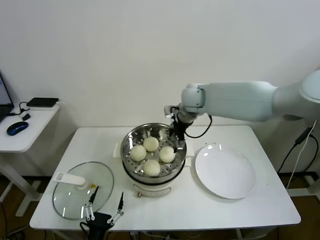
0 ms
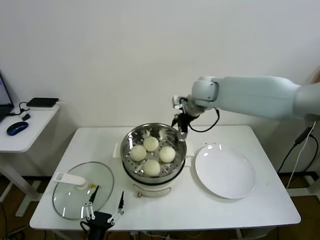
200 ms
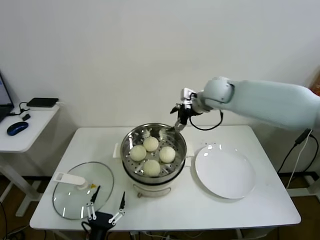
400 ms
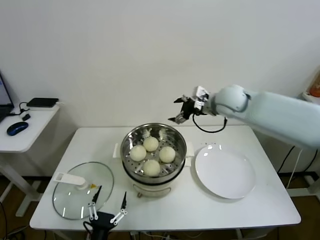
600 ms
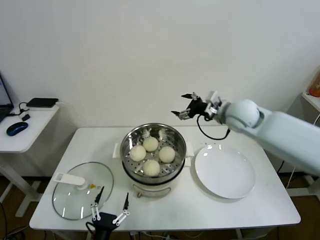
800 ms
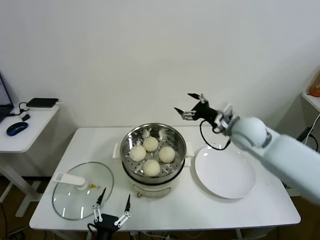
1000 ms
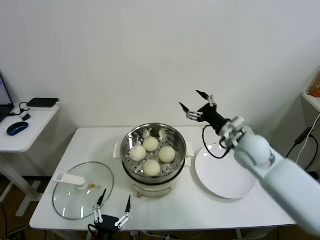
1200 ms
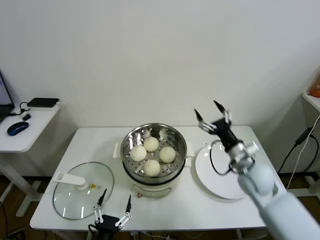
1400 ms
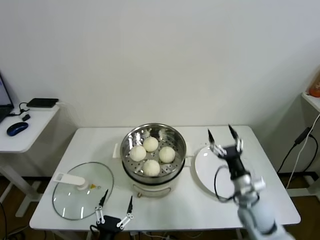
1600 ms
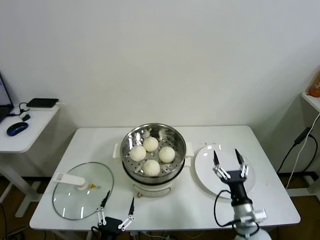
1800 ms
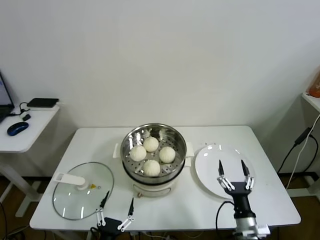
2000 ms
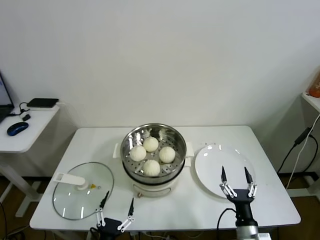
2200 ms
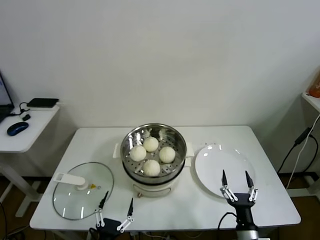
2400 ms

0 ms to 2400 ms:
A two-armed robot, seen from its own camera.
Task of the whole recording: take steamed baozi put them in steamer.
0 ms to 1200 ms: The right gripper is displaced to the right, backward and downward by some 25 cm.
1200 ms to 2400 ms: The right gripper goes some 35 cm backward and downward.

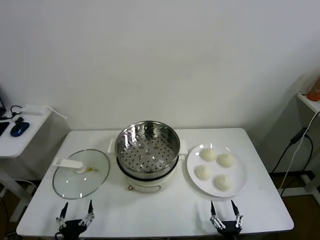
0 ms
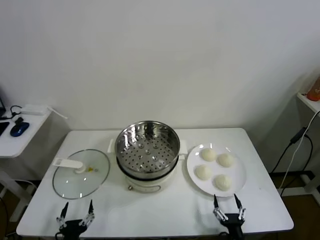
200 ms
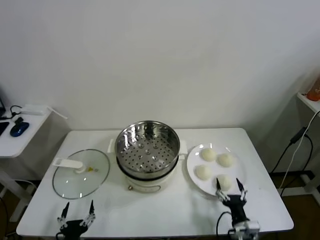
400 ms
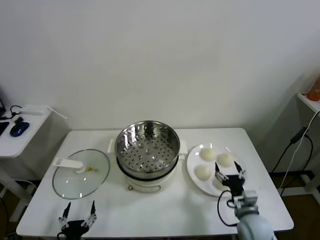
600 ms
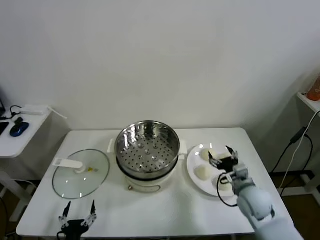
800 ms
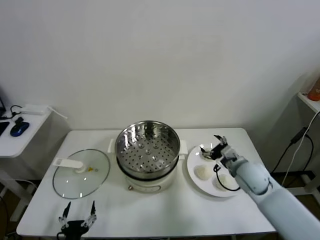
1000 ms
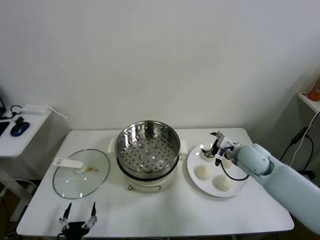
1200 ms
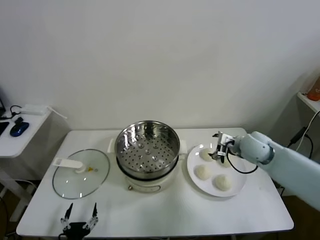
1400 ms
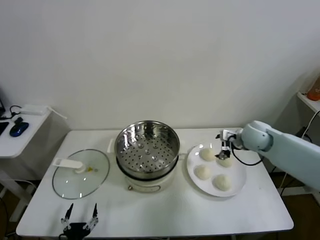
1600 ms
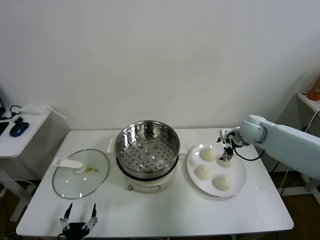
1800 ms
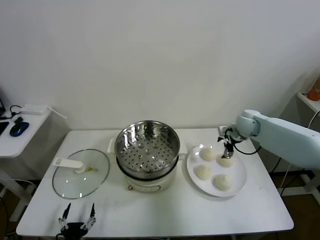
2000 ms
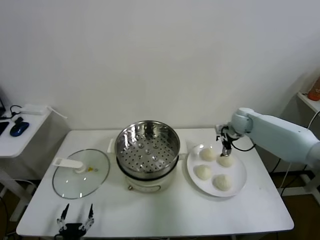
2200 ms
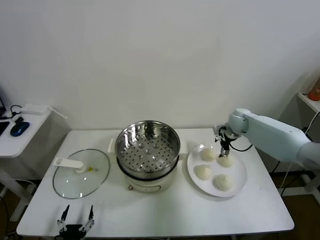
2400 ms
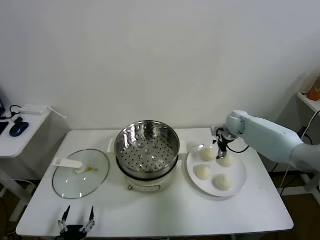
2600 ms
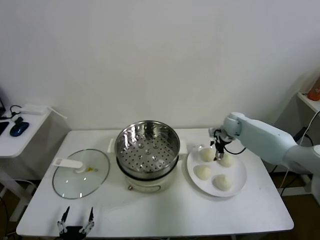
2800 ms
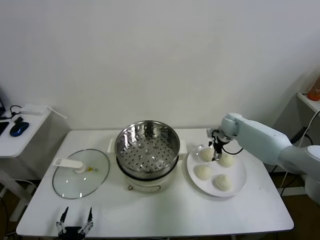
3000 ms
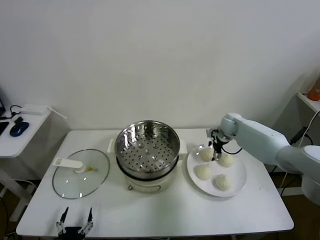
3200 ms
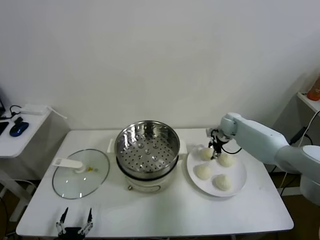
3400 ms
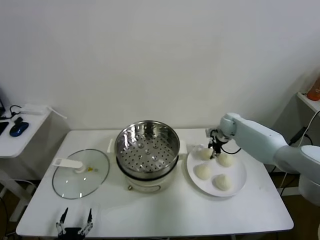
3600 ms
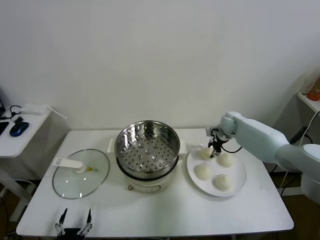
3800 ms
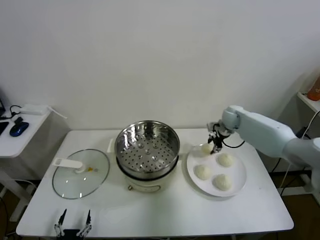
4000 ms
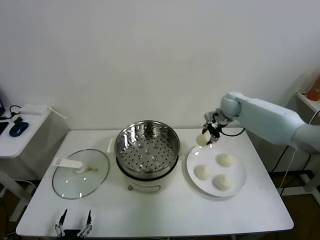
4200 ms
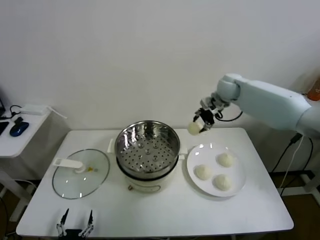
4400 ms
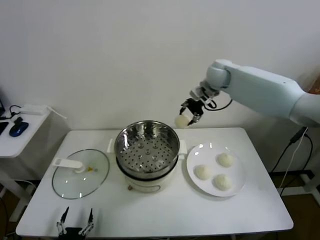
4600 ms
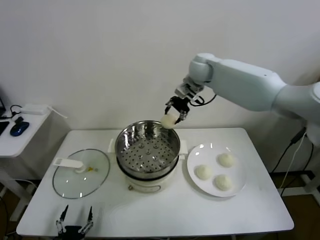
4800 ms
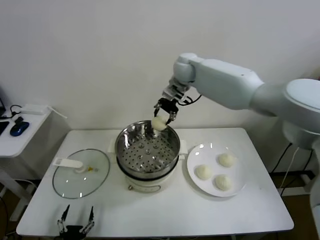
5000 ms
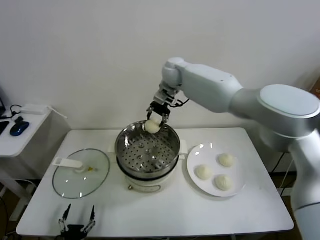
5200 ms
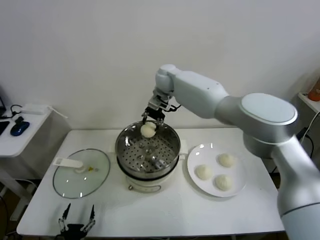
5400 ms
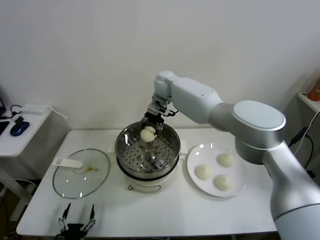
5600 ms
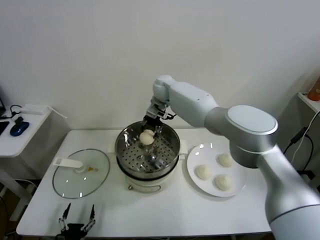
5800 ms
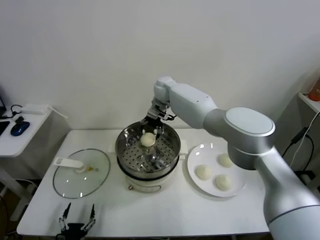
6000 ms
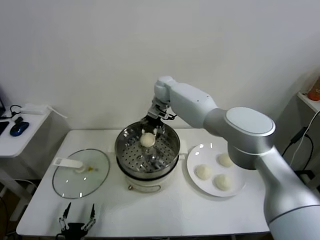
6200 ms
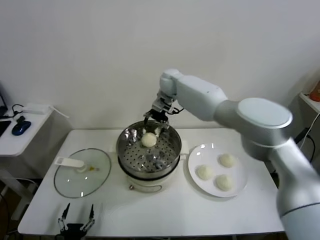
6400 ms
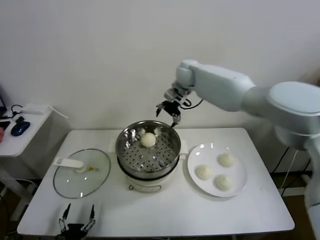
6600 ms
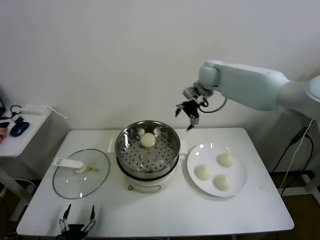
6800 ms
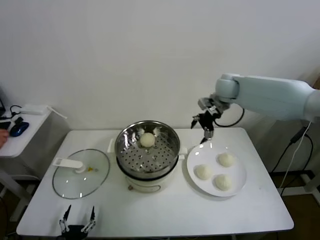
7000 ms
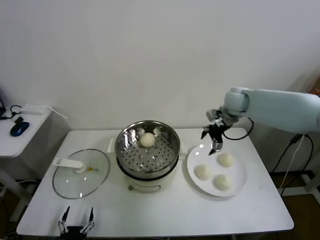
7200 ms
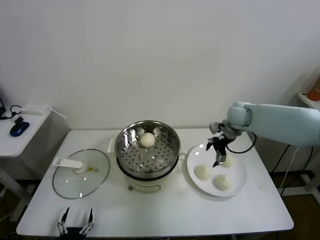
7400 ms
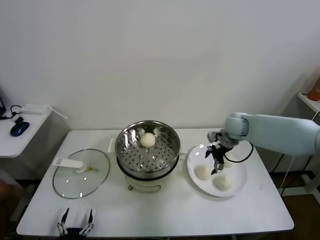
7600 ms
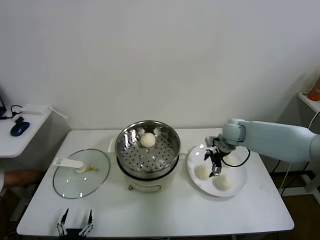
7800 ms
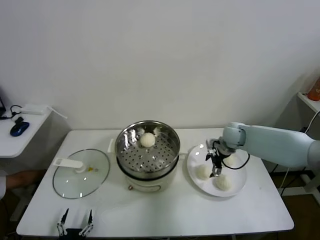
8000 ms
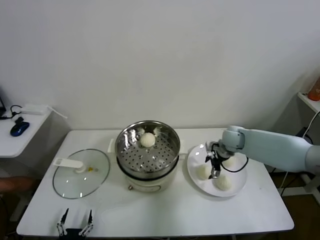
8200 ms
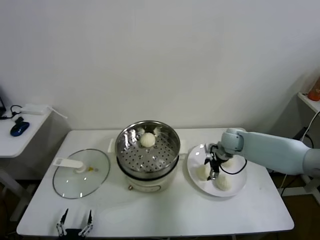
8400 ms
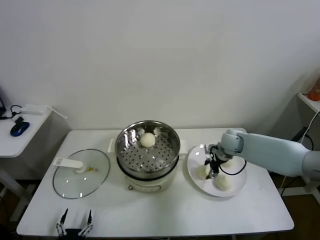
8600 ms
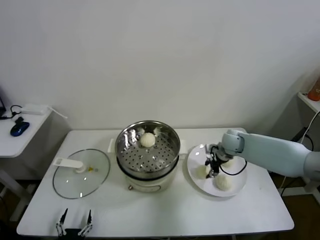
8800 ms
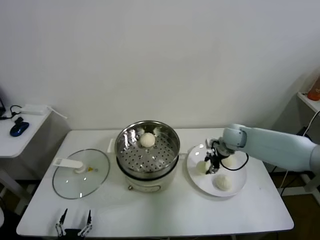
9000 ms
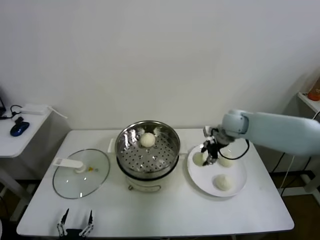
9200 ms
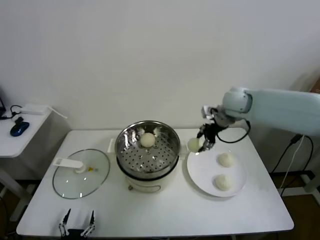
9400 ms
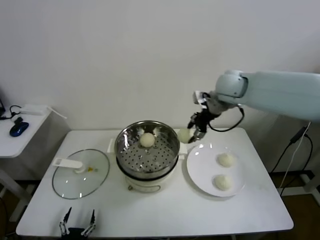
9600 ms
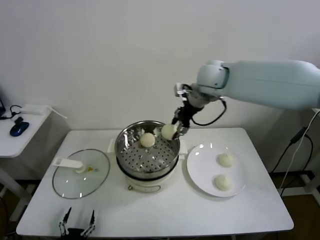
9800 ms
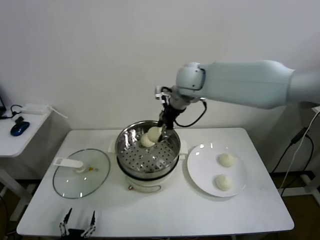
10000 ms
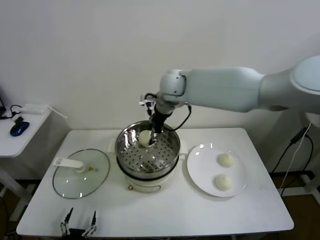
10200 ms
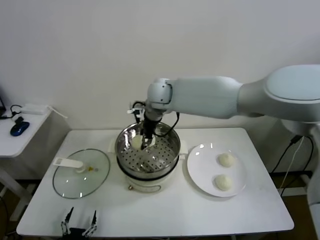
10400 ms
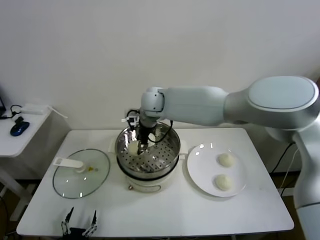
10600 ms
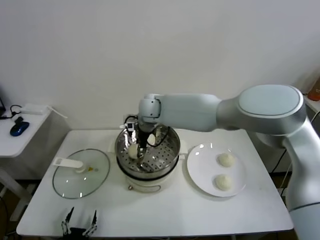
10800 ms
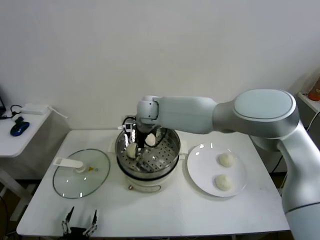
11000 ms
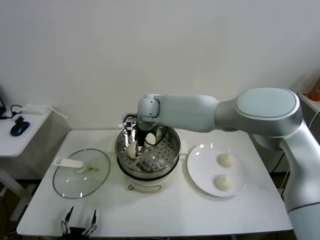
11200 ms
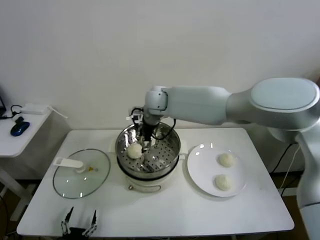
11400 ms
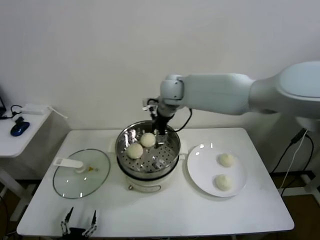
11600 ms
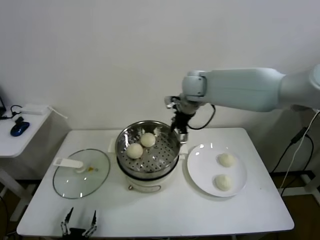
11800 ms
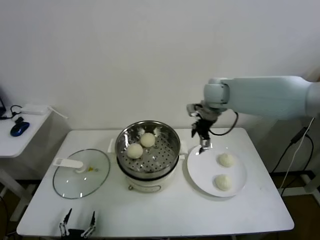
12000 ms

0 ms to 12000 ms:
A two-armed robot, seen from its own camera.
Task of the whole recording: take steamed baozi put them in steamer.
Step, 0 ms to 3600 ms: Grasp the baozi in the plate with right gripper.
Step, 3800 ms to 6200 ms: Place the baozi on the steamer with right gripper.
Step, 6400 ms to 8600 ms: Grasp the baozi in the plate with right gripper.
Step, 8800 ms to 11200 ms: Place the baozi on the steamer with right gripper.
1600 ms to 3000 ms: The right gripper heads forward and downward, covering about 15 cm.
3000 ms to 4400 ms: The right gripper heads upward, covering approximately 20 cm, and closes its fingers.
4400 ms to 6000 ms: The right gripper moves to the left, approximately 20 cm, and opens.
6000 ms to 7600 ms: The right gripper moves to the right and backward, some 30 cm.
7600 ms to 9000 ms: The right gripper closes its fingers.
9000 ms to 10400 ms: The right gripper goes roughly 35 cm to the left and upward.
10400 ms to 12000 ms: The right gripper heads to the right, covering approximately 20 cm, and opens its fingers.

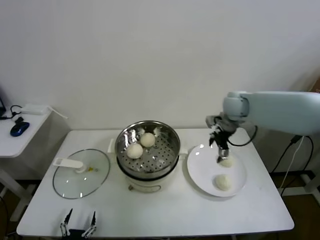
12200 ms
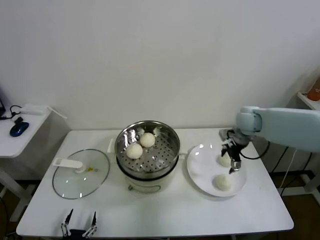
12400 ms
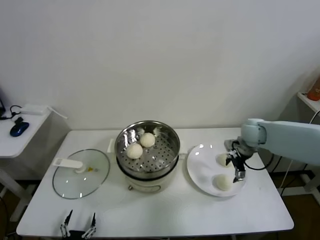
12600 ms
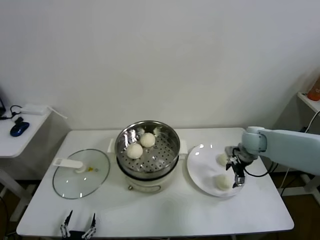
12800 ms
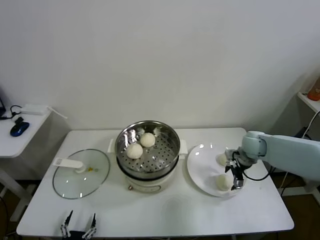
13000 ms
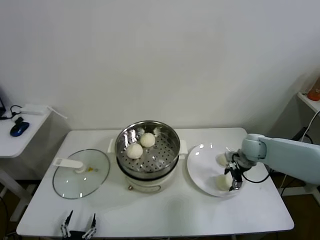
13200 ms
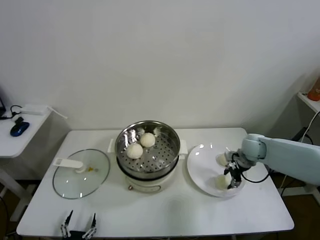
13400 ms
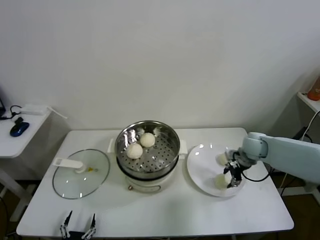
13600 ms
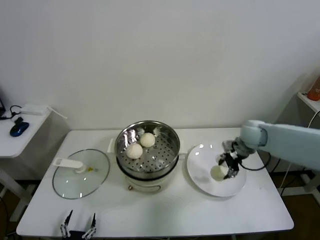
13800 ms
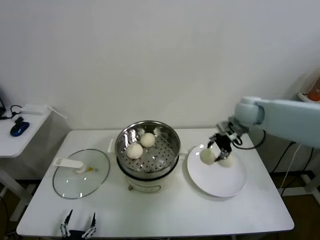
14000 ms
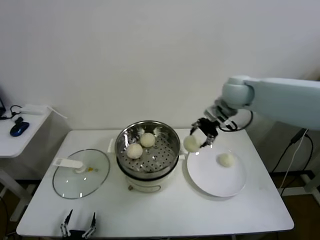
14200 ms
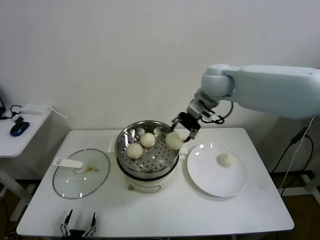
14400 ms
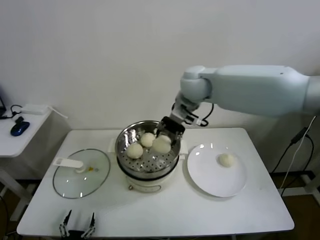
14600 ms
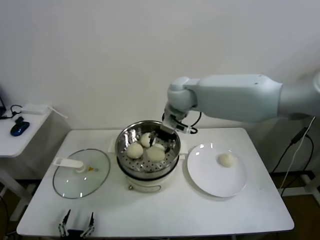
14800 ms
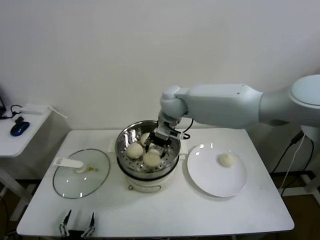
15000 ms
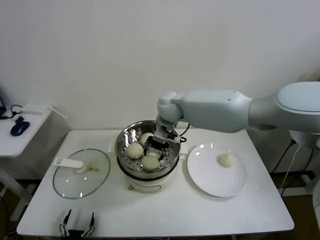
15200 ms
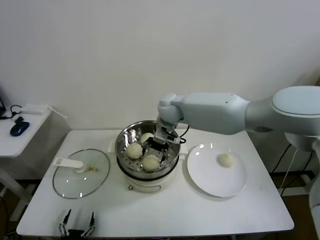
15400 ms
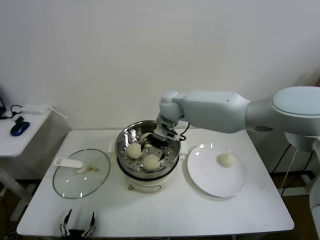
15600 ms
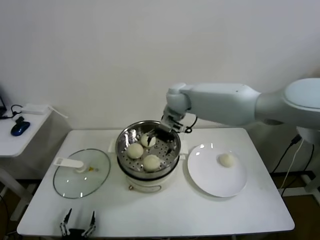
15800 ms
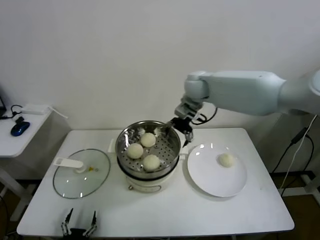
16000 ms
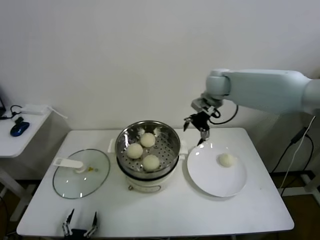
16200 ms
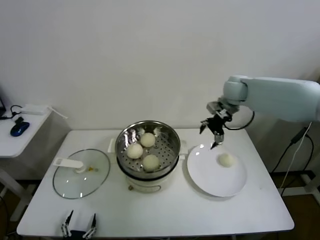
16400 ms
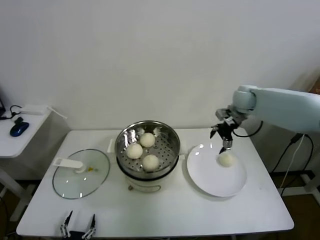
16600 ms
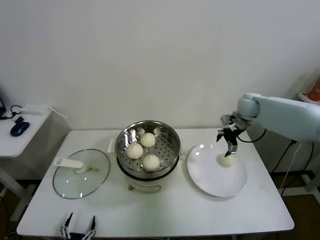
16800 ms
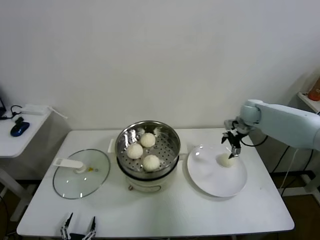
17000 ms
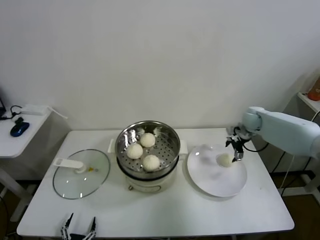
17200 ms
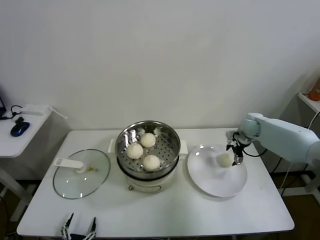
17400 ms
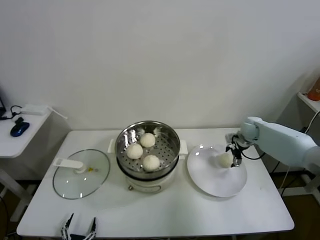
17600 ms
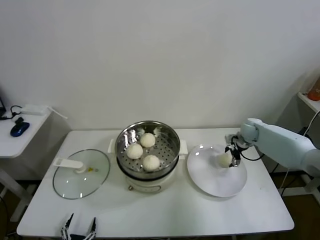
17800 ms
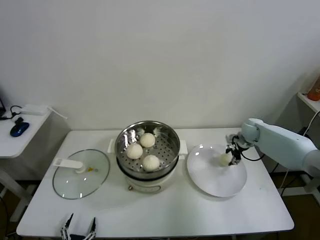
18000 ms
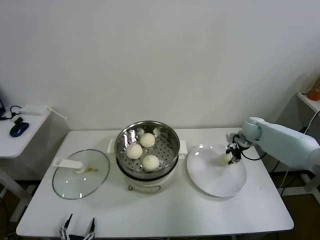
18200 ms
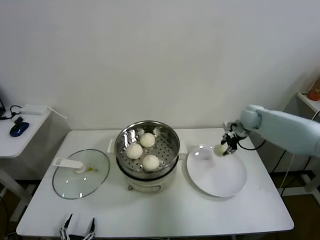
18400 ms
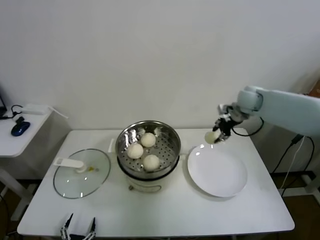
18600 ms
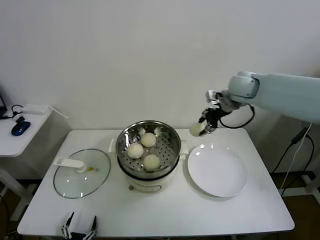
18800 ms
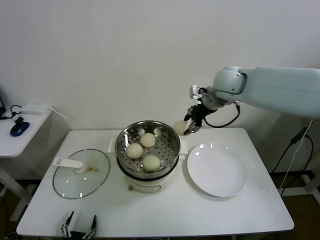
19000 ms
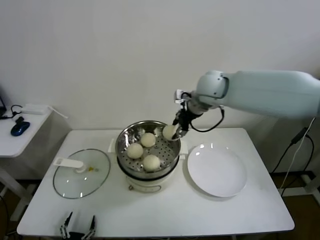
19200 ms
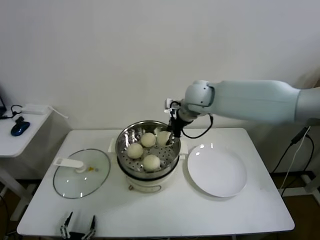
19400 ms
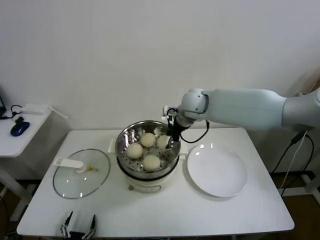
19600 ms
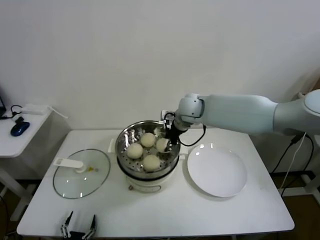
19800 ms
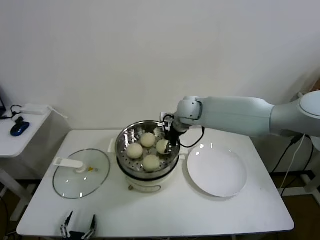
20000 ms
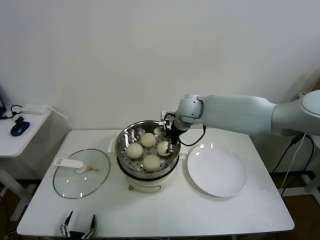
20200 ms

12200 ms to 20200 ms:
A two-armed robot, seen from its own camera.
Task of the whole recording: take steamed baozi put them in steamer.
Step, 12200 ms to 13400 ms: Grasp the baozi in the plate with right gripper.
Step, 13600 ms to 15600 ms: Place the baozi on the steamer with right gripper.
Step, 15800 ms to 18000 ms: Grasp the baozi in the plate with right gripper.
12200 ms to 13800 ms: The right gripper shifts roughly 10 cm downward and to the right, and closes up.
13800 ms to 15400 ms: The right gripper shifts some 30 cm to the left, and opens its fingers.
15400 ms to 17000 ms: The right gripper shifts roughly 30 cm to the right.
17000 ms to 18600 ms: The right gripper is displaced upward by roughly 5 cm, and closes its fingers.
18600 ms to 20200 ms: The right gripper is displaced to the left by approximately 20 cm, and opens.
